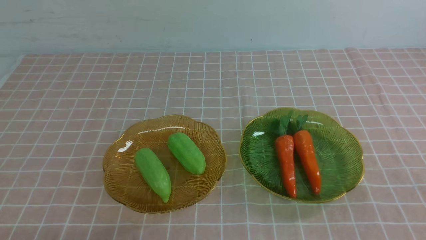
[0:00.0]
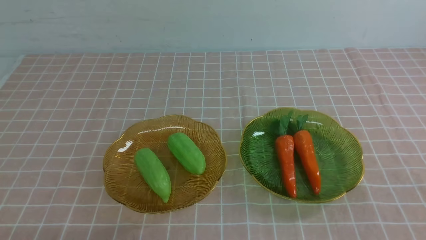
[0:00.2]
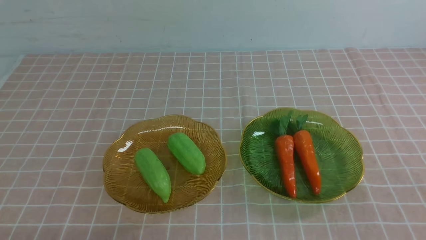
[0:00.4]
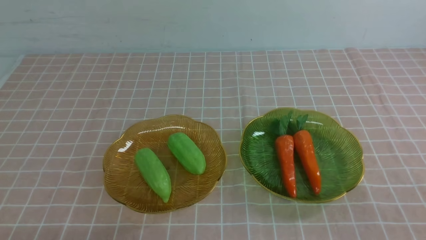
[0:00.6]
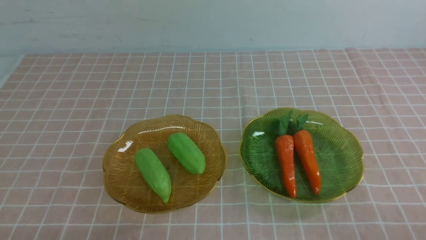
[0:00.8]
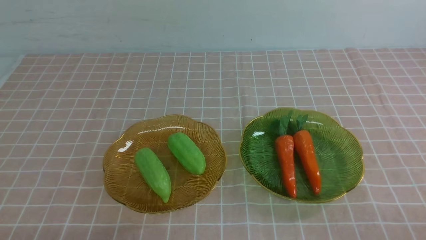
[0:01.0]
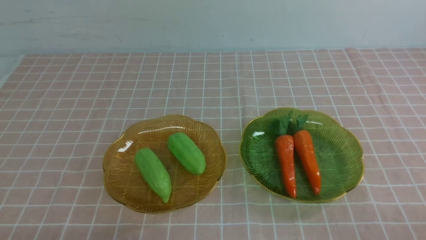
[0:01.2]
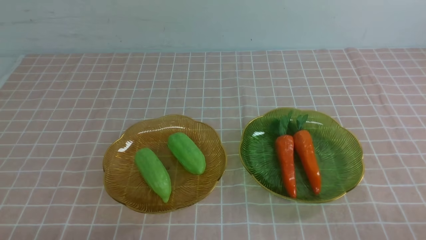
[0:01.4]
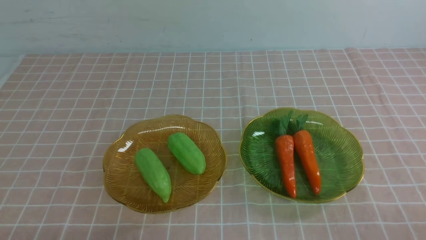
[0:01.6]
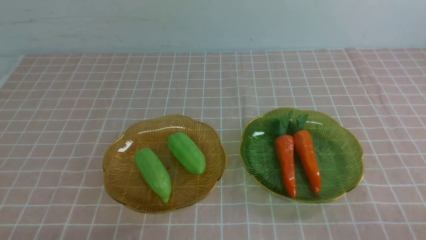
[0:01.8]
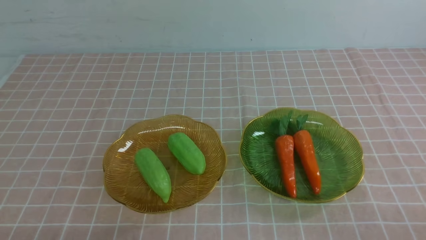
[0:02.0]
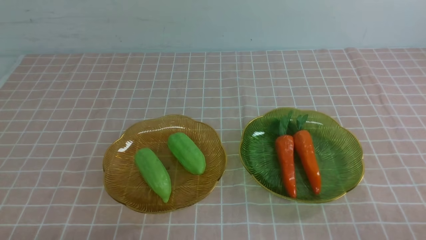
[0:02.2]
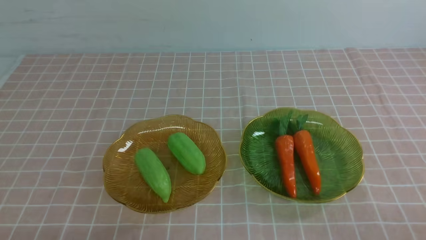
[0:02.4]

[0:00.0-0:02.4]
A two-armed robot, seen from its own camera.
0:01.2 to 0:02.4: Both grippers stay about where they are.
